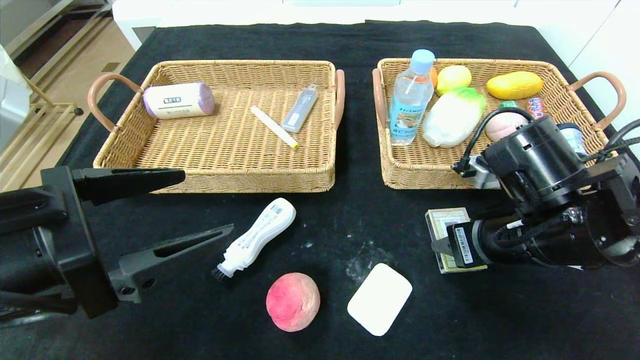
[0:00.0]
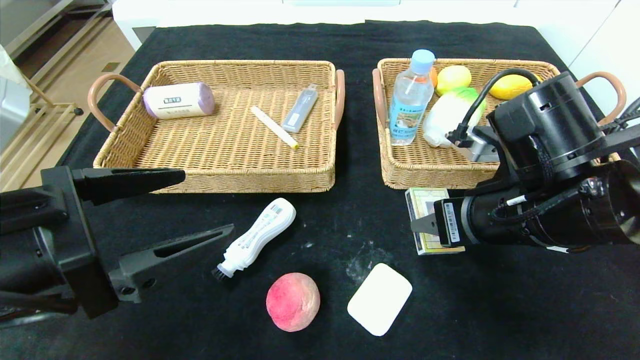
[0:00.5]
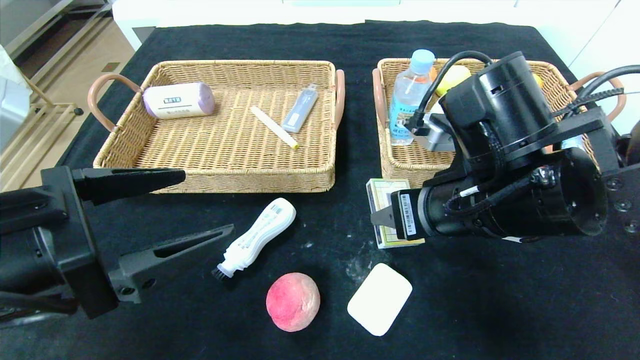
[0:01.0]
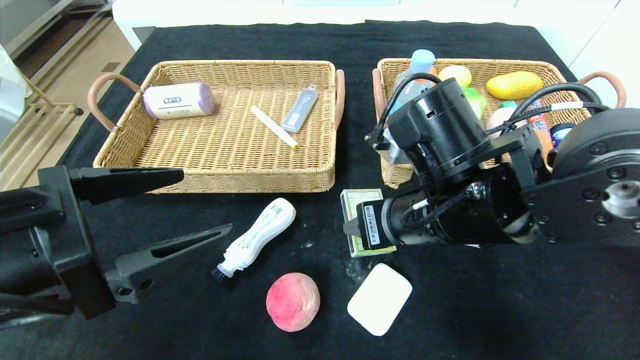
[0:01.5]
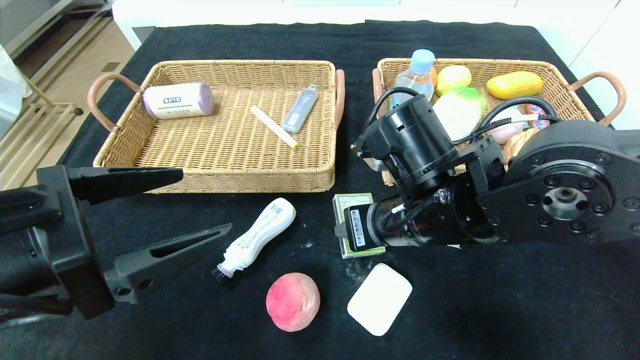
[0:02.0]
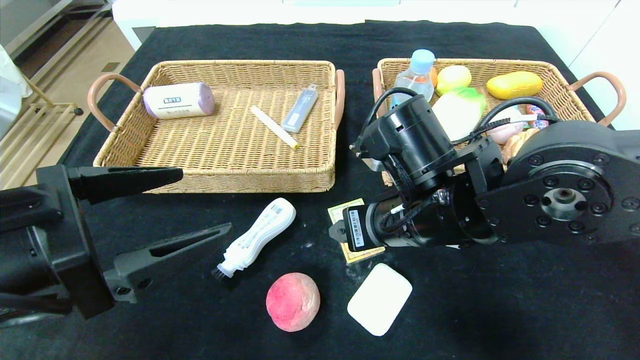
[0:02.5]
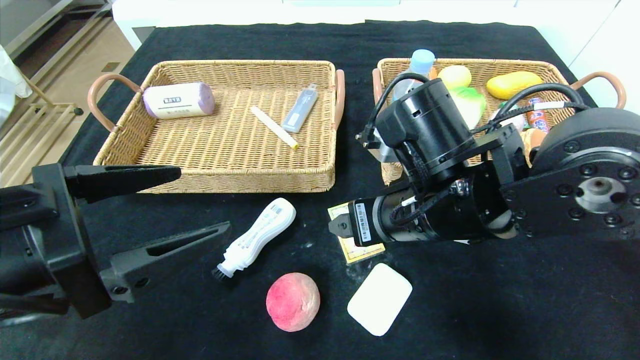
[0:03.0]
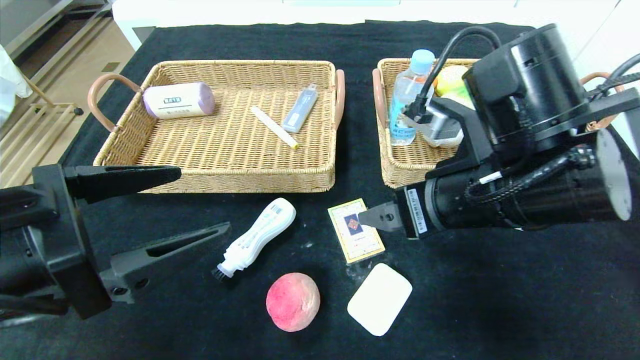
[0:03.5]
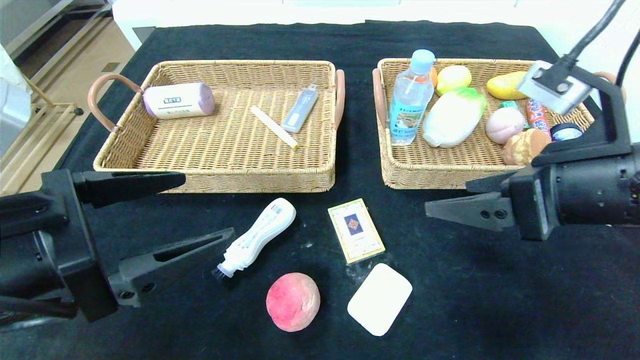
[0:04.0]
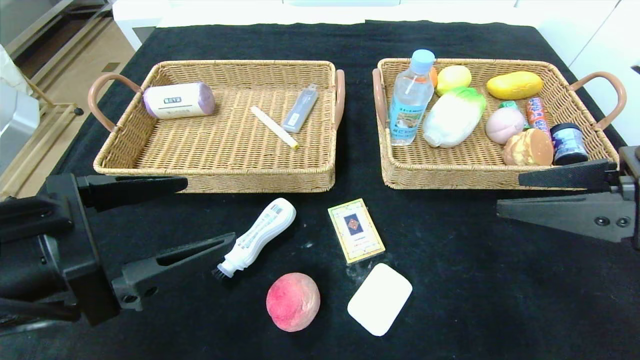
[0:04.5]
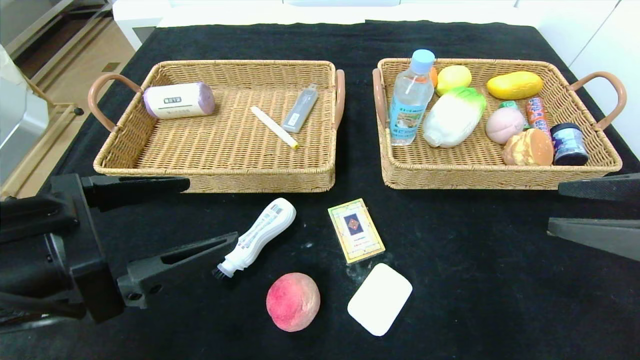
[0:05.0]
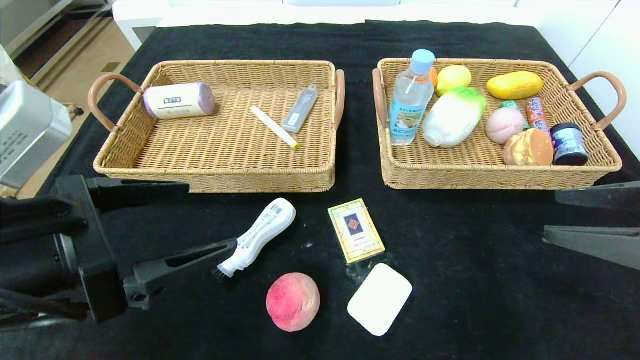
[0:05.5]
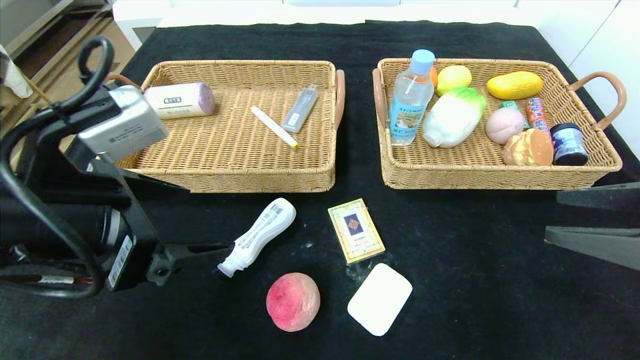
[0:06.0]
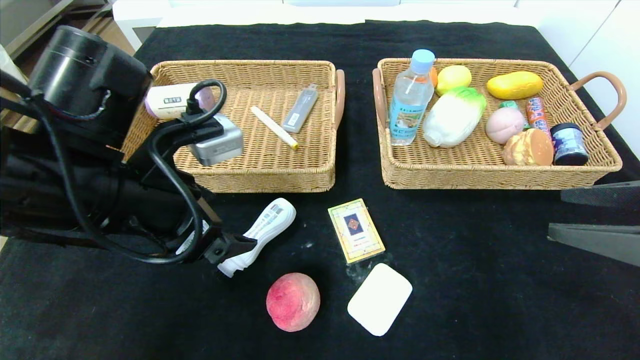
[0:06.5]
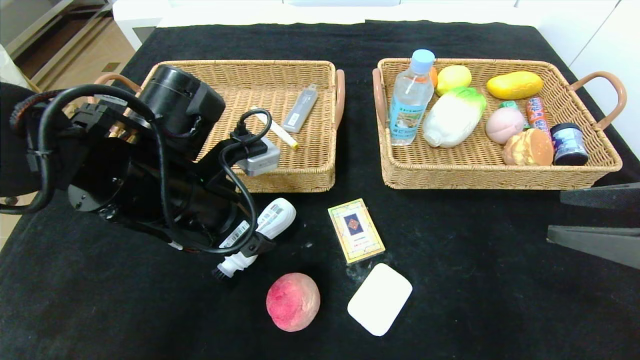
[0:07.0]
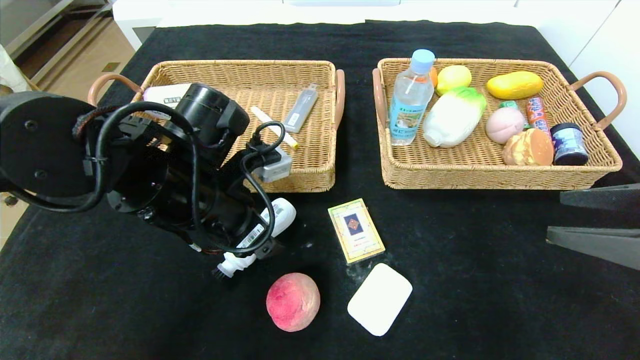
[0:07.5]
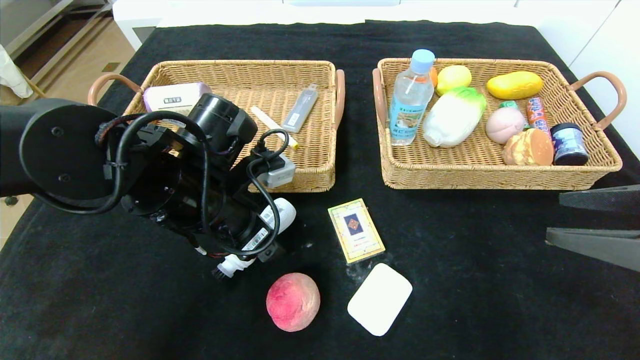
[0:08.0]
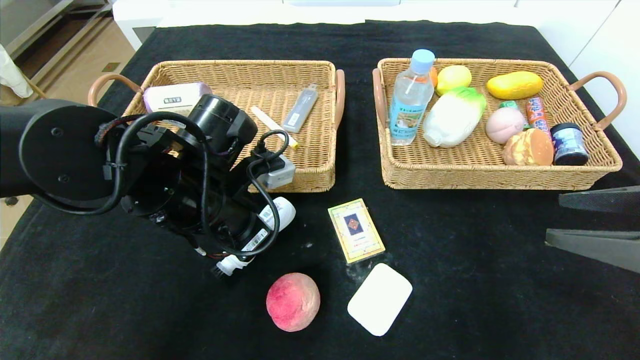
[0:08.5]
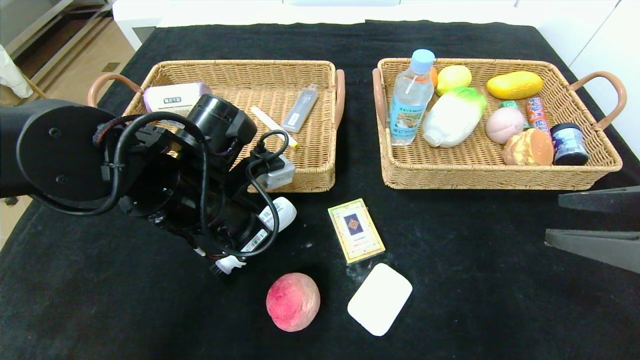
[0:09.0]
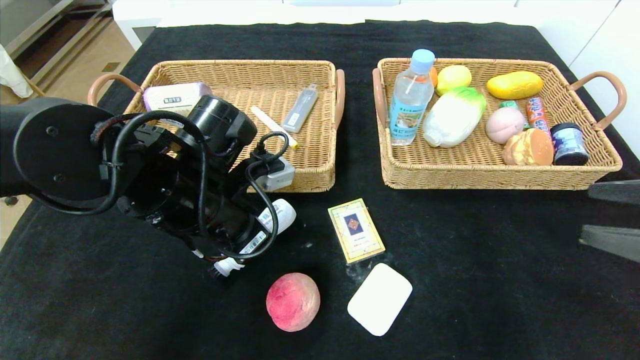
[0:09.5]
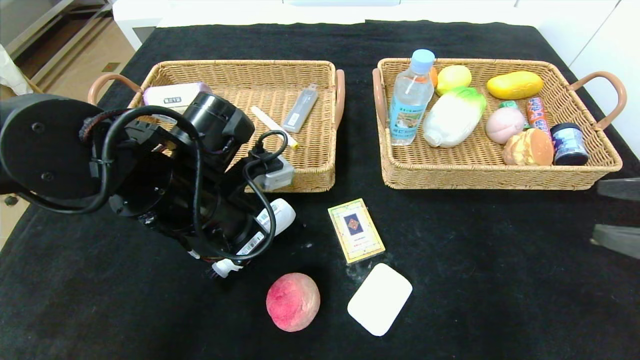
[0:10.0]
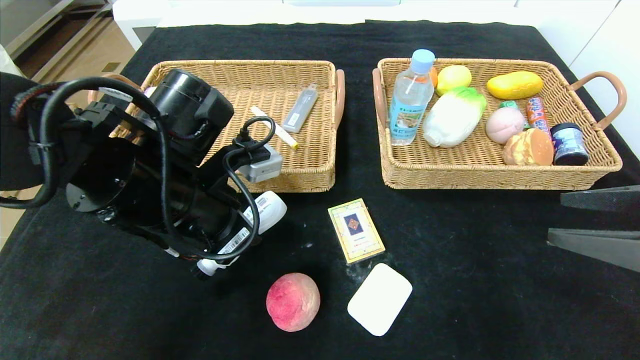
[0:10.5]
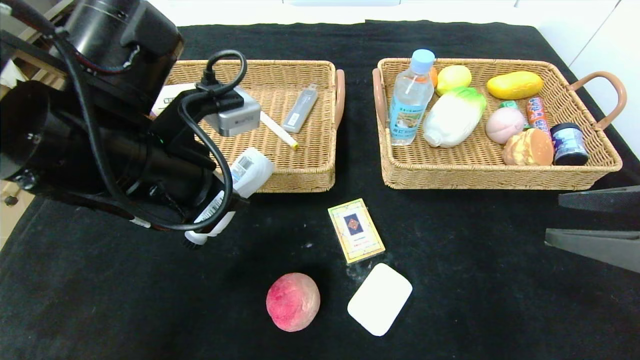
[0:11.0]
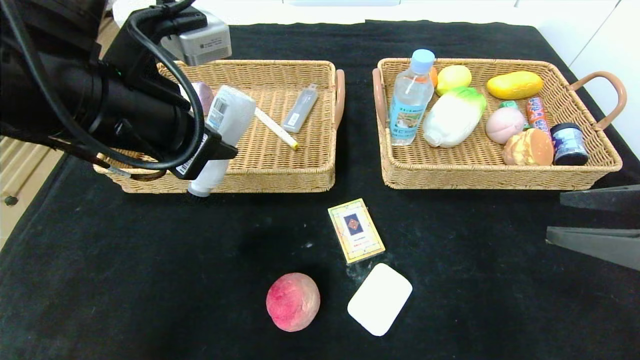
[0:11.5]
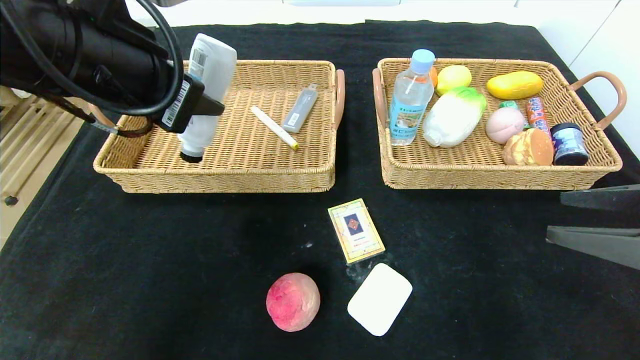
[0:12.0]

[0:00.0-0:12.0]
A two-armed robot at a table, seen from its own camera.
Step, 0:00.0 to 0:03.0: Place the playing cards in the center of the table.
0:00.0 to 0:02.0: The right gripper is displaced to the left by about 10 cm.
0:02.0 to 0:04.0: The right gripper travels to the right and upward by some 15 cm, and opens up.
0:04.0 to 0:06.0: The right gripper travels to the right by approximately 10 cm.
0:06.0 to 0:08.0: The left gripper heads forward, to the right and downward, covering about 15 cm.
0:08.0 to 0:10.0: The left gripper closes.
0:10.0 to 0:12.0: The left gripper shifts roughly 15 cm upward.

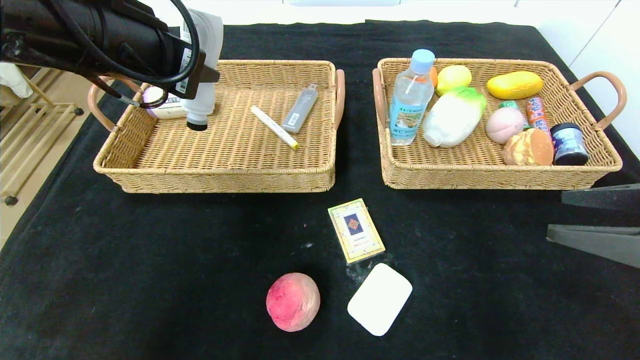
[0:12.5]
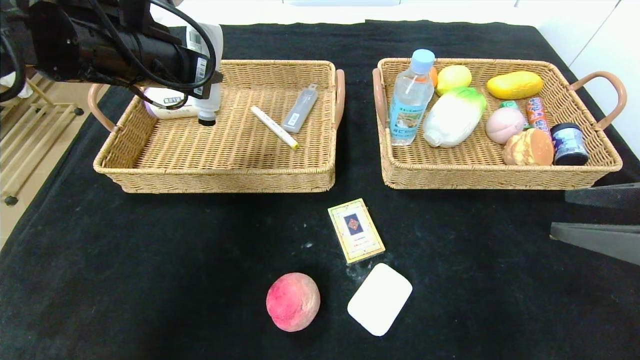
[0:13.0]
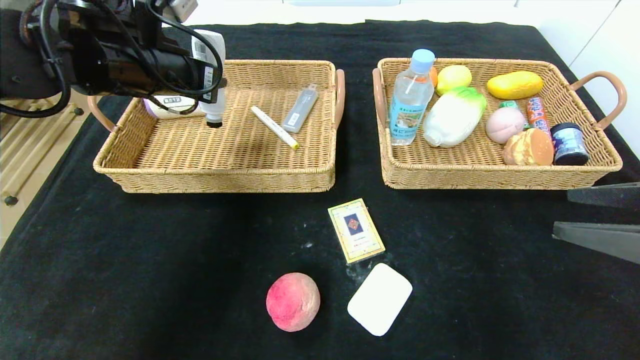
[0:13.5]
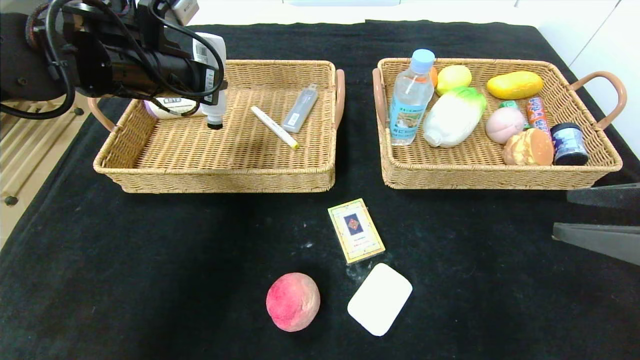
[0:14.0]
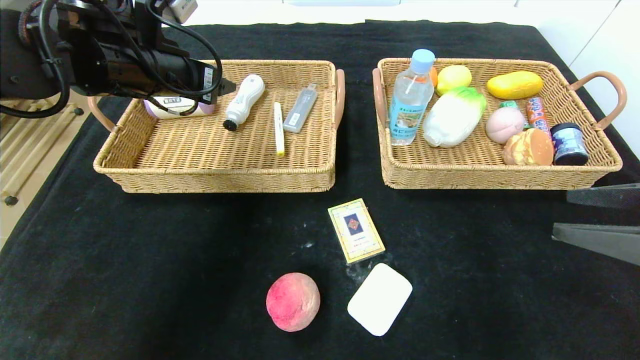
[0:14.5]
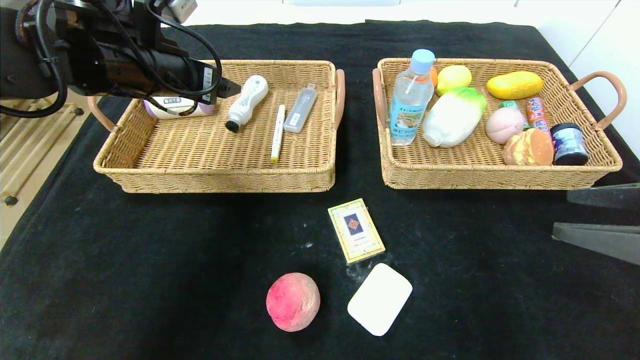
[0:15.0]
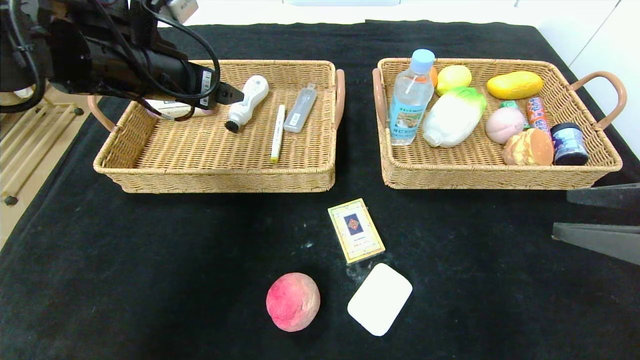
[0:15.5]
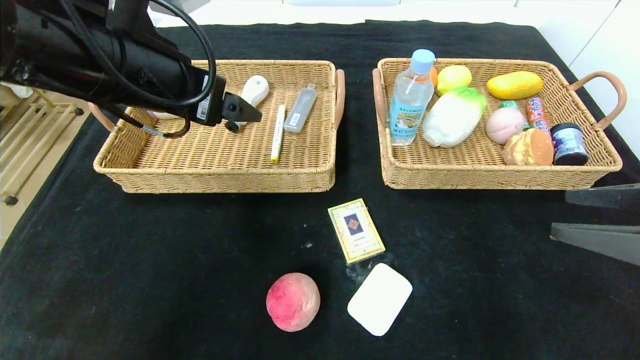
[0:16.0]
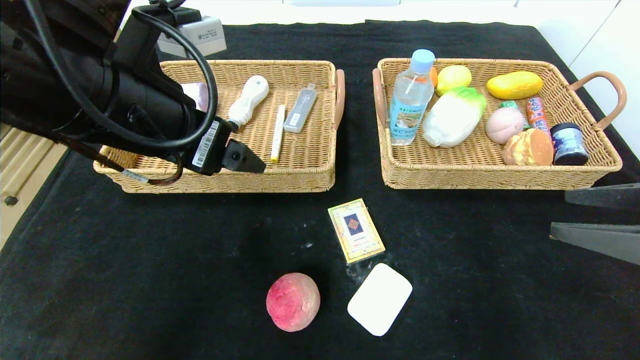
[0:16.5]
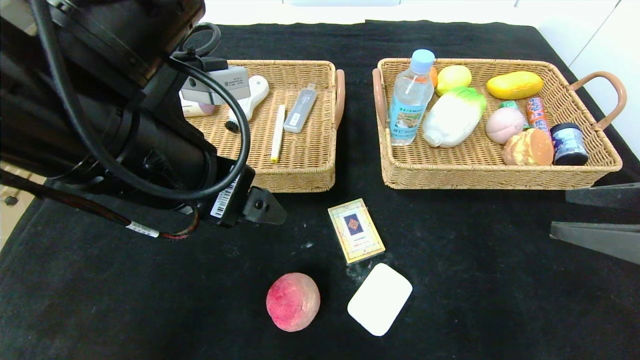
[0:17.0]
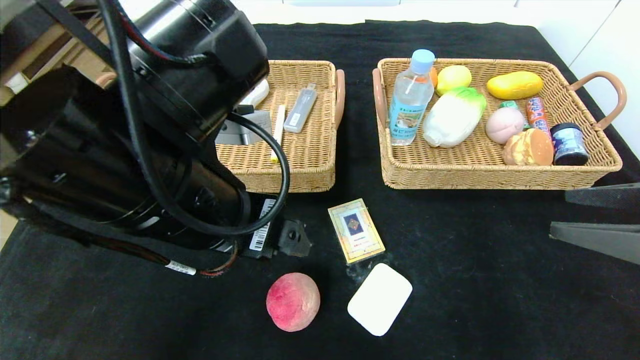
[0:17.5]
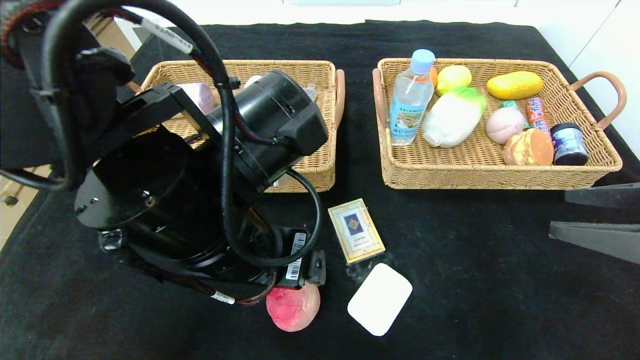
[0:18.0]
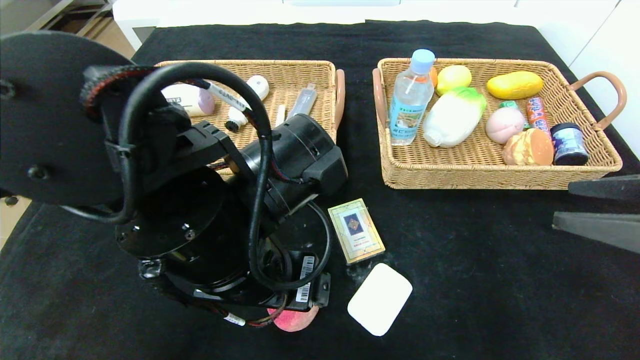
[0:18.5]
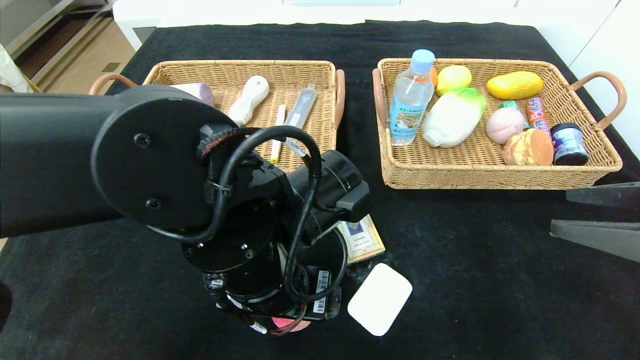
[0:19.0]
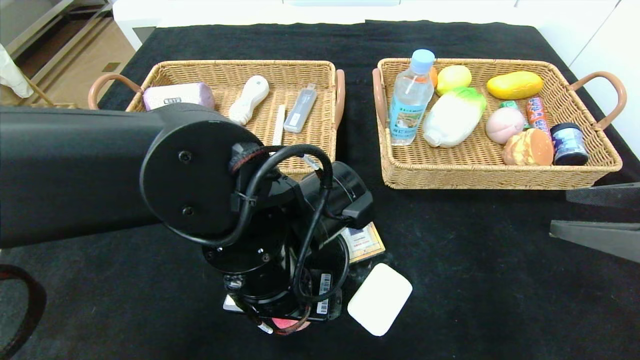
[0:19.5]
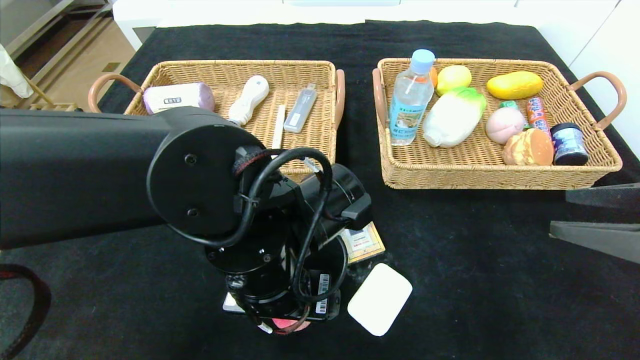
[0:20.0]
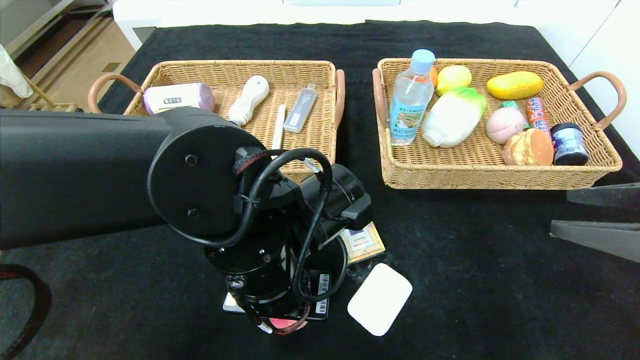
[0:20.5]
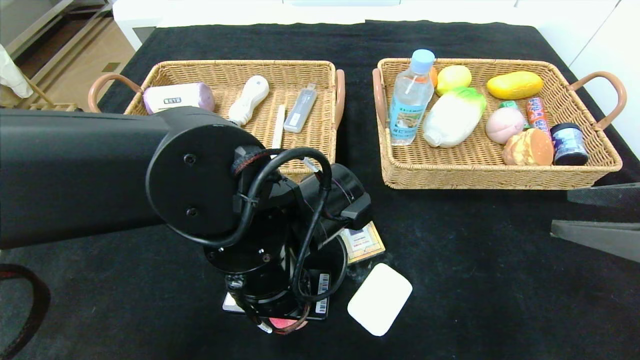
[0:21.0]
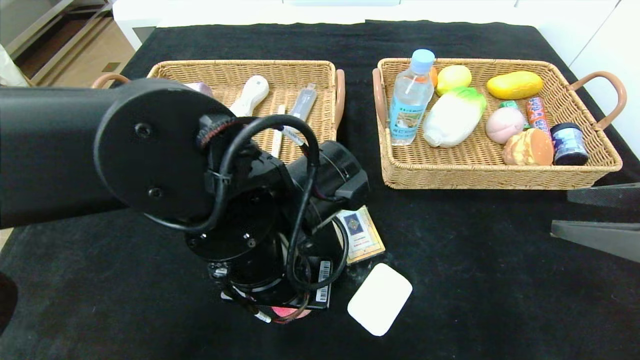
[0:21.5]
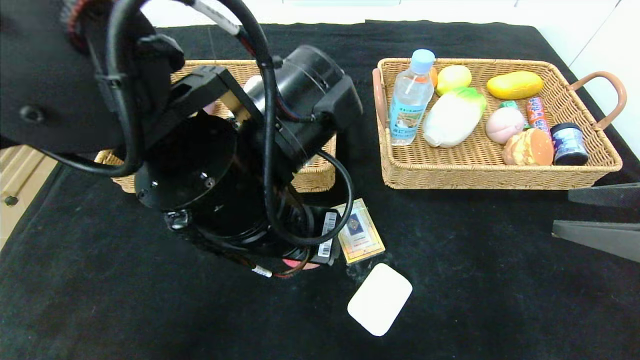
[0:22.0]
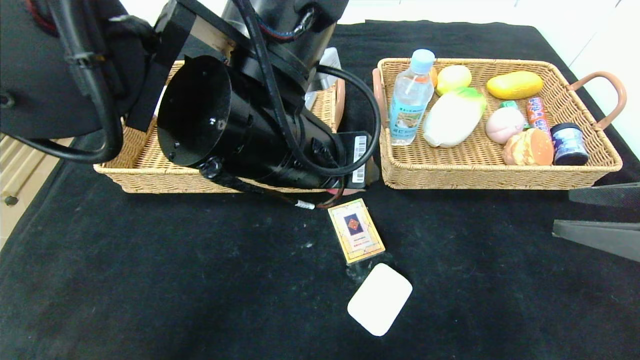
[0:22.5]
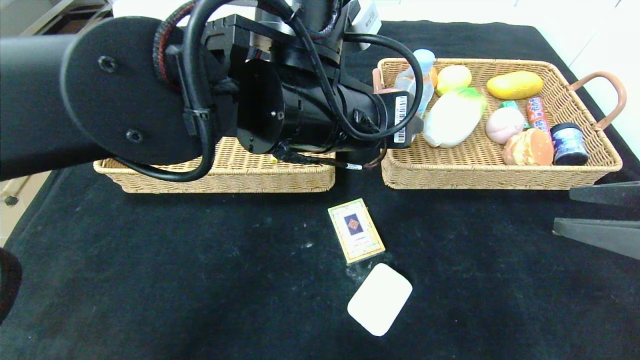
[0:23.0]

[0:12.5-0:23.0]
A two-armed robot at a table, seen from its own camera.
0:12.5 to 0:14.5: The left gripper travels forward by roughly 10 cm, and opens up.
0:14.5 to 0:16.5: The left gripper is displaced backward and to the right by about 15 cm, and opens.
0:16.5 to 0:19.0: The left gripper shifts some 15 cm downward and to the right.
0:19.0 to 0:21.0: The left gripper closes.
0:21.0 to 0:23.0: The left gripper heads upward and forward, covering approximately 15 cm.
